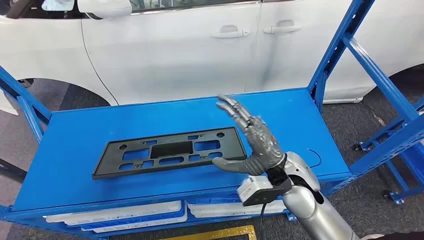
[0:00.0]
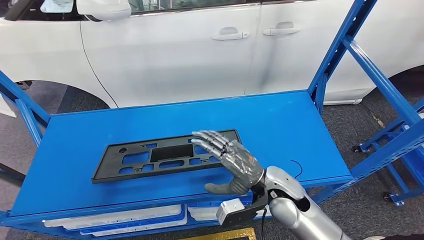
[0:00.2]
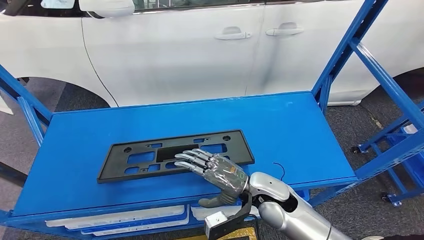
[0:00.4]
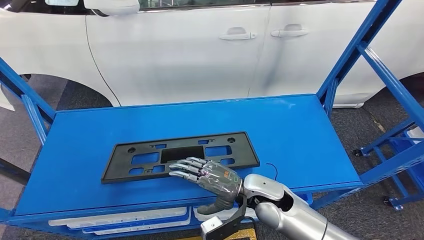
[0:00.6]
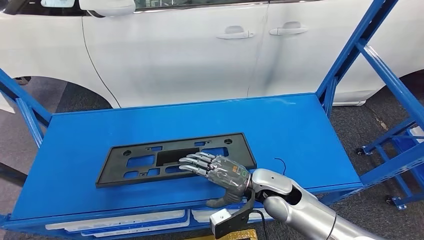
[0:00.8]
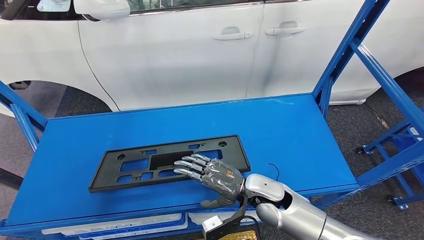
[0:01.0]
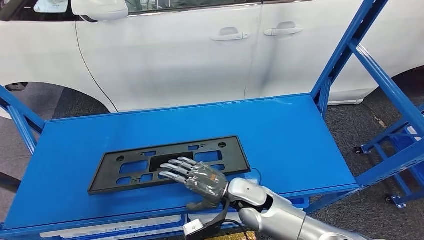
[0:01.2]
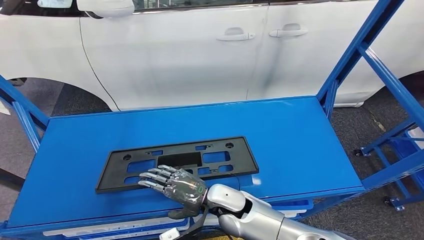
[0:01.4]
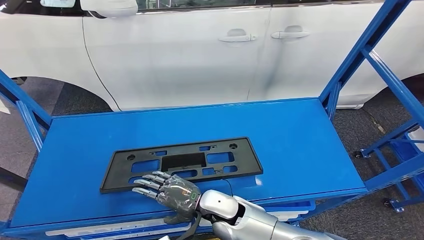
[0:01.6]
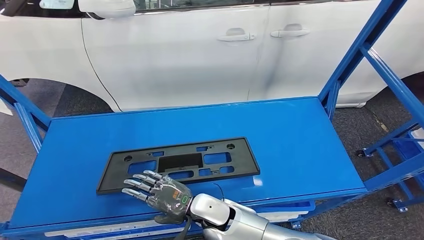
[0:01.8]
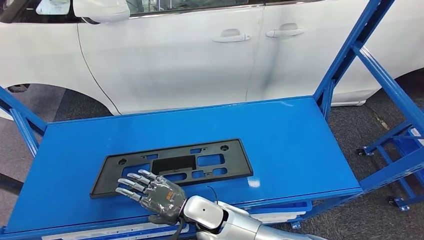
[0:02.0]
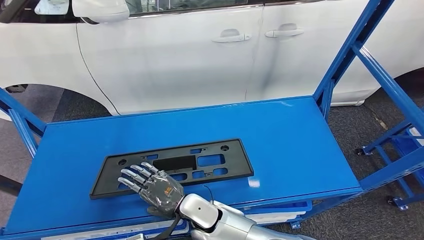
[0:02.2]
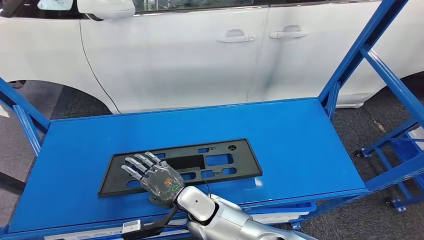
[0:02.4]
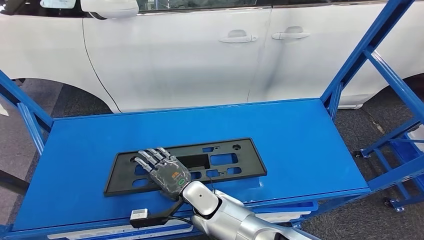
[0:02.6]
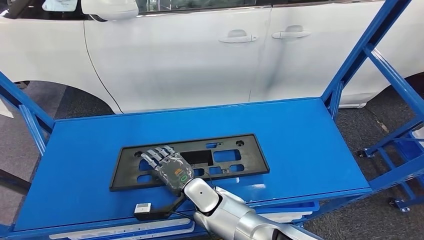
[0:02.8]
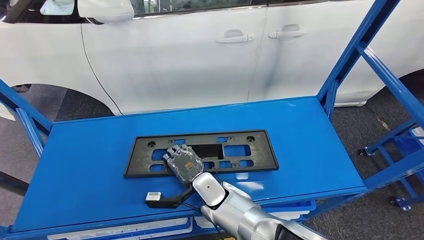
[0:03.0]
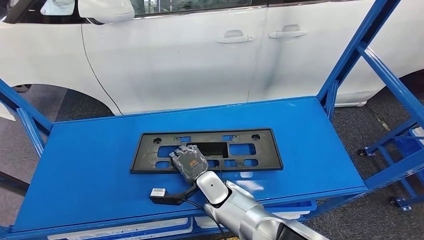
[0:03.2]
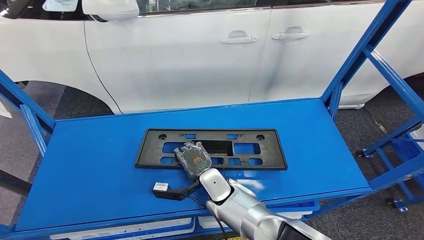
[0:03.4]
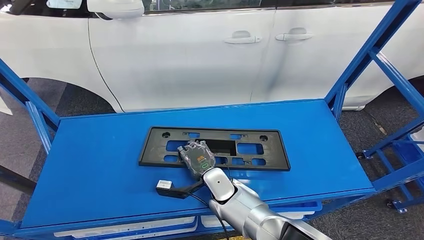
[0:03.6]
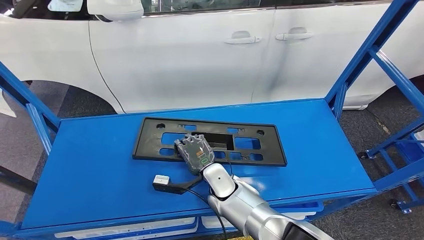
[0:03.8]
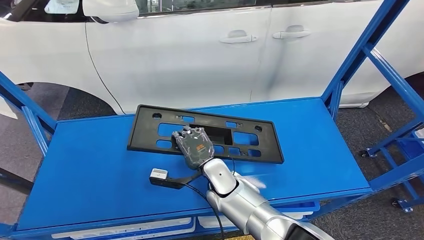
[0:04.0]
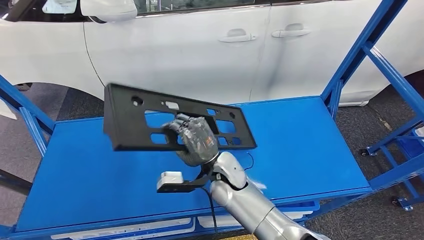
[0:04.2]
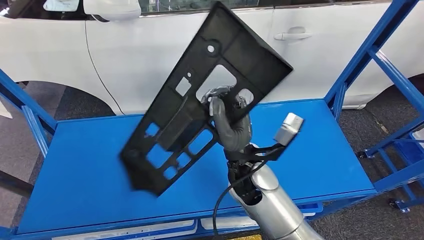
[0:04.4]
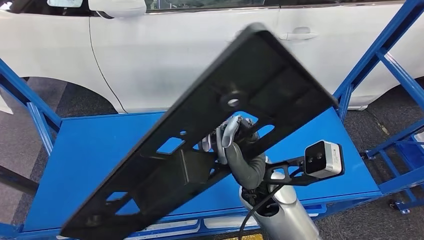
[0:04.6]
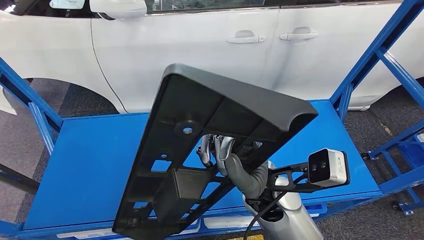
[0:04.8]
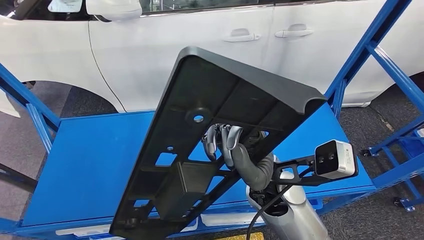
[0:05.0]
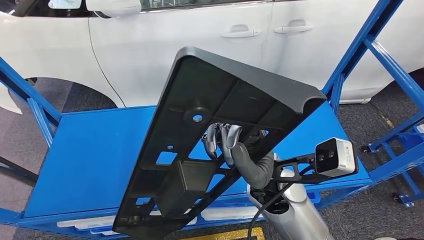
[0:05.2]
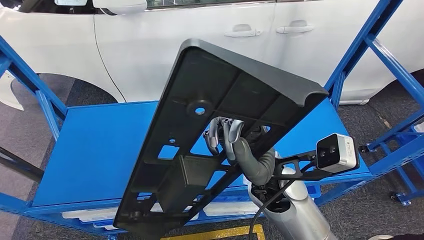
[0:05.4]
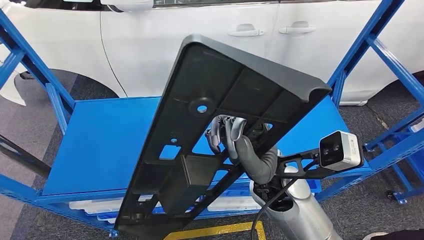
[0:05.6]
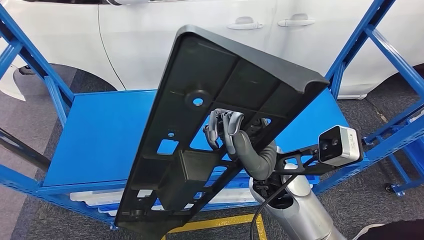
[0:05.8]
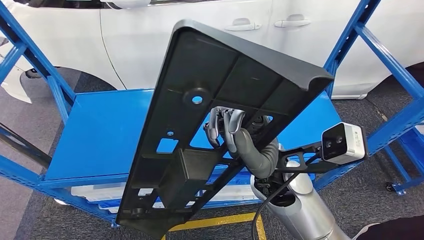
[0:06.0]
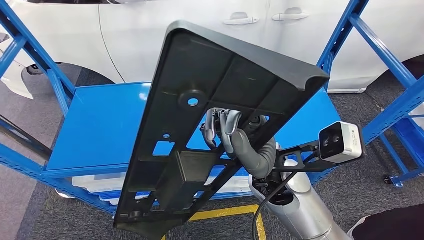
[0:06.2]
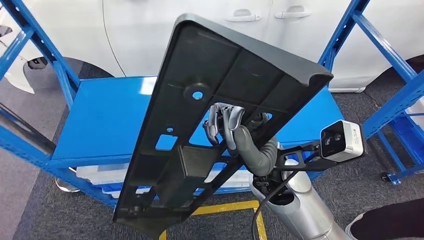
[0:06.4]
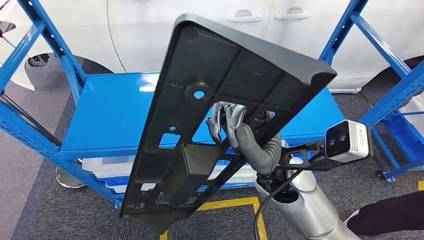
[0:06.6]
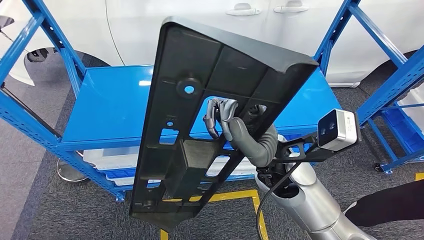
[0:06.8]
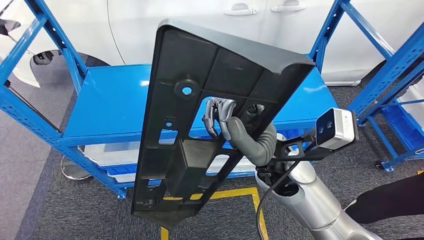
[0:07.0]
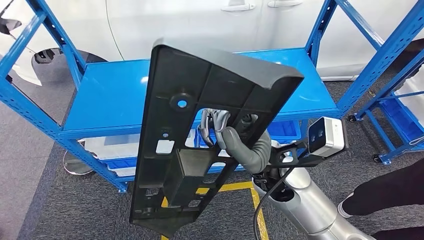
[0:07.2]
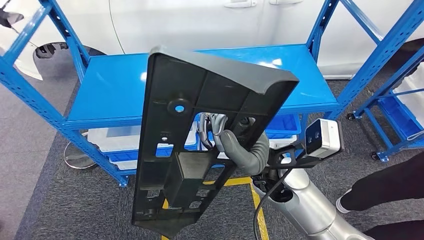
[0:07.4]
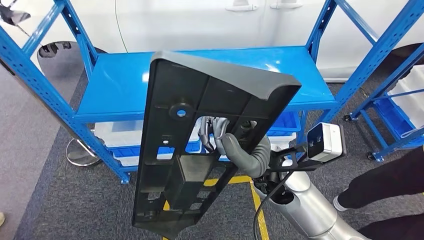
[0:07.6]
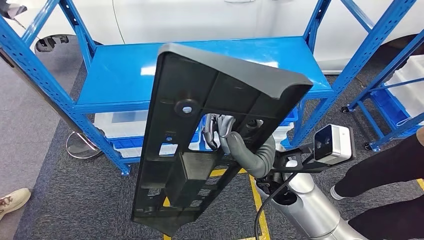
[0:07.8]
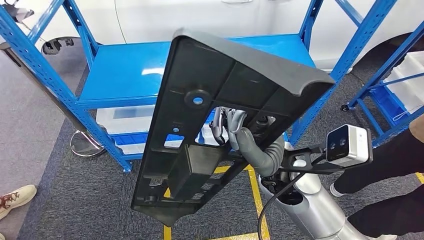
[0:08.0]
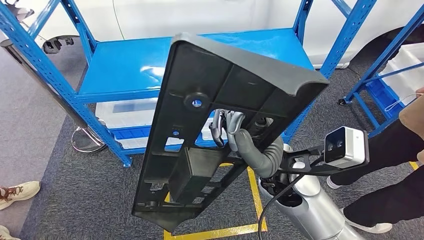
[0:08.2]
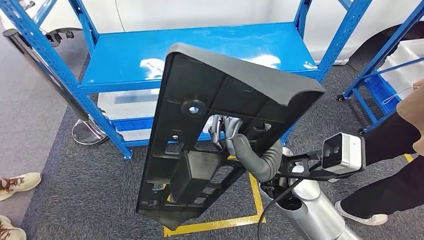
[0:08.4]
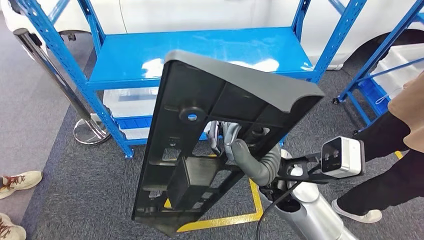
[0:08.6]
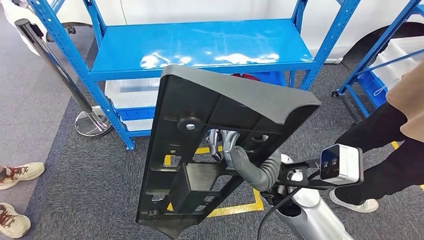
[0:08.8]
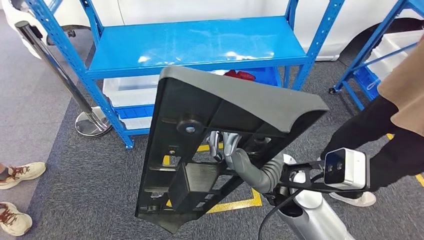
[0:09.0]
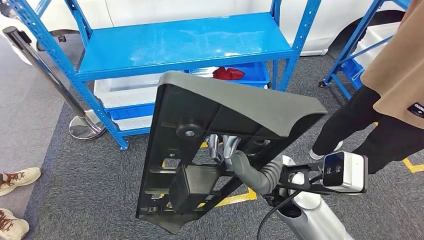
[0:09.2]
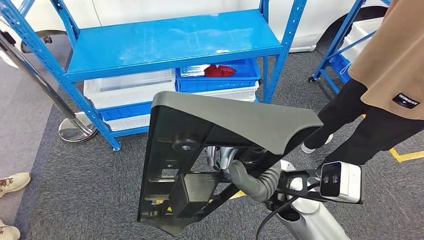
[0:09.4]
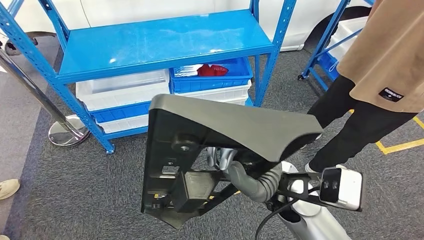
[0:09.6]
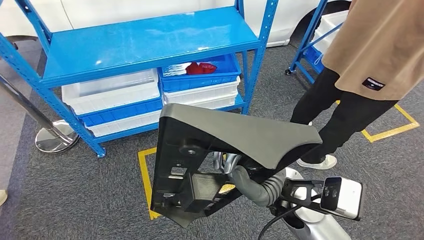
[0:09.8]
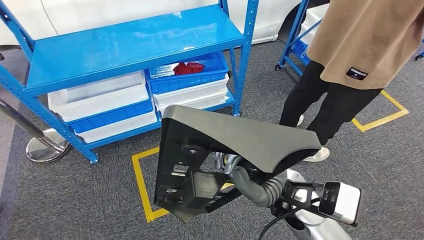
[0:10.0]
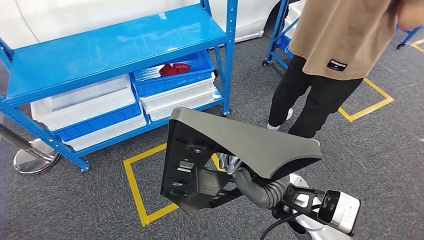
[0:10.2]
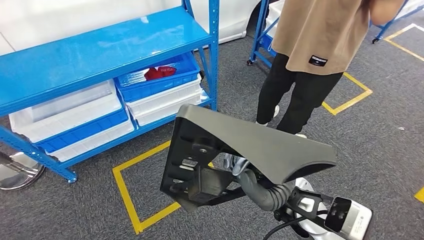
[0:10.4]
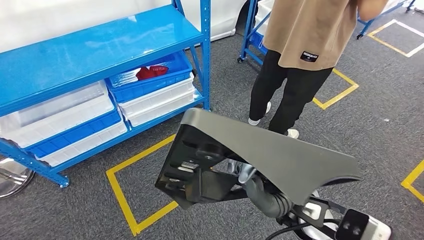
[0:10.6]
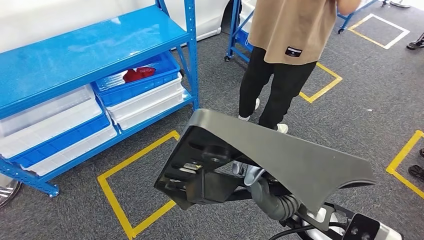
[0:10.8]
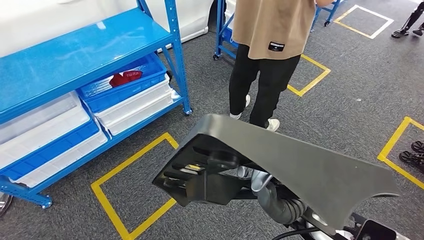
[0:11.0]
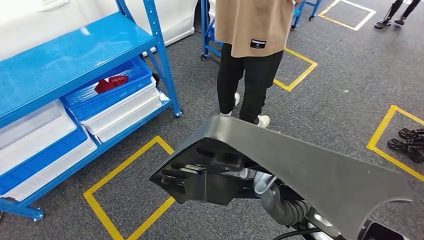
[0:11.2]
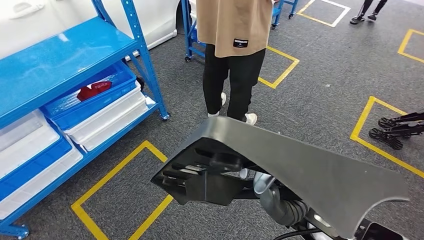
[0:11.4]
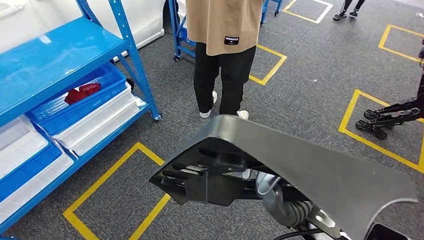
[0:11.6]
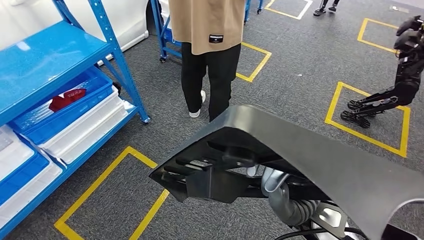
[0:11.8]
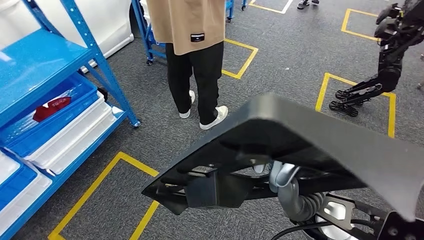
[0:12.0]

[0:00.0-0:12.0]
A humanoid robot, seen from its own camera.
Step, 0:00.0 to 0:05.0: Pick up the small component from the shelf.

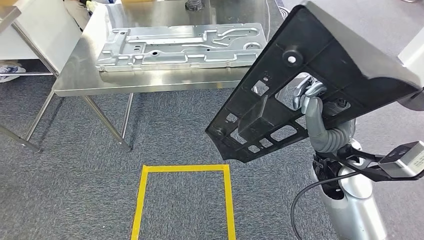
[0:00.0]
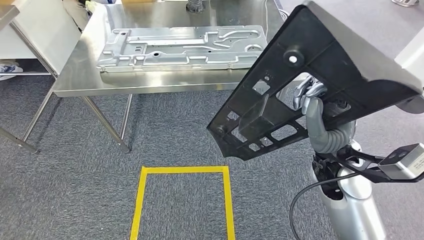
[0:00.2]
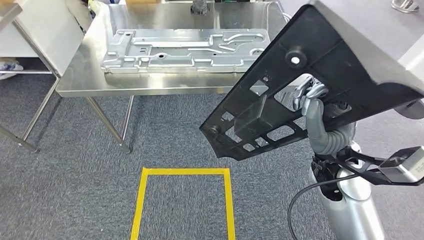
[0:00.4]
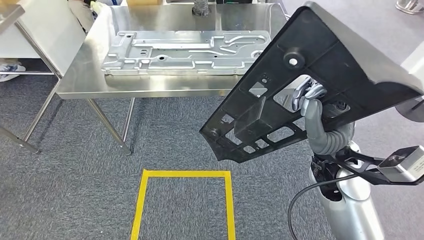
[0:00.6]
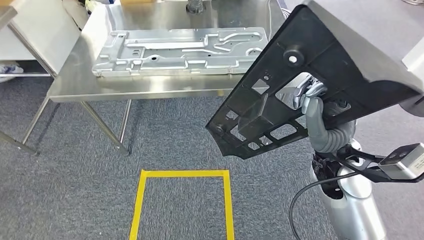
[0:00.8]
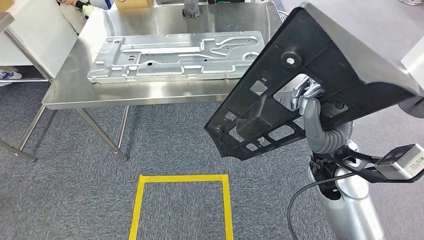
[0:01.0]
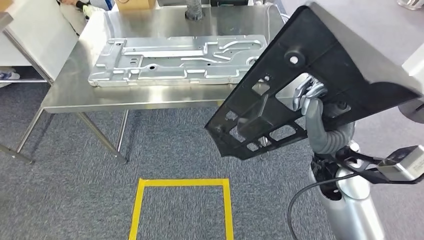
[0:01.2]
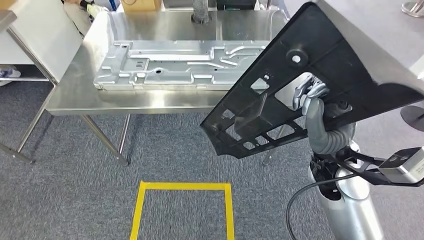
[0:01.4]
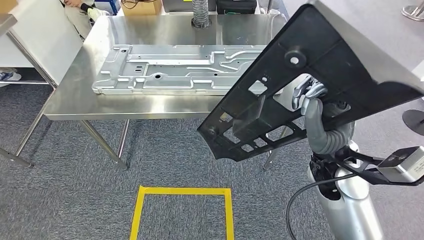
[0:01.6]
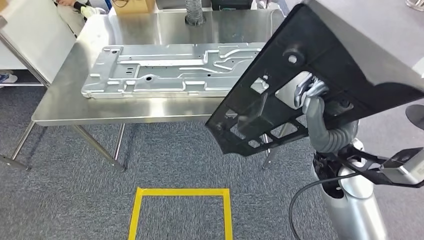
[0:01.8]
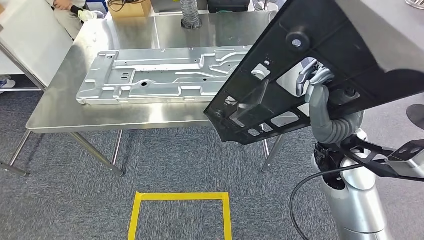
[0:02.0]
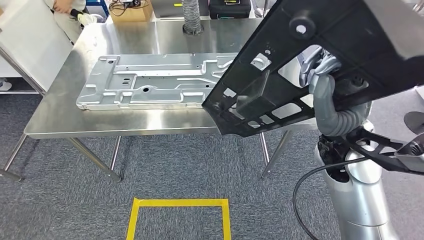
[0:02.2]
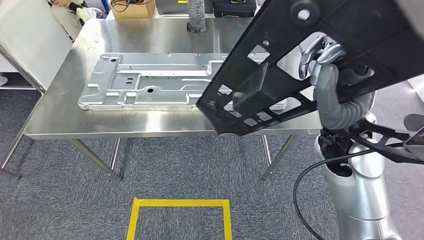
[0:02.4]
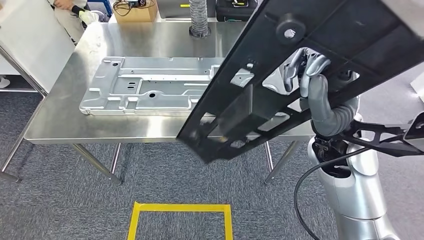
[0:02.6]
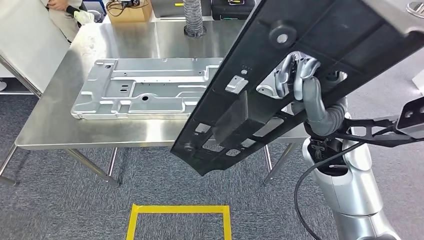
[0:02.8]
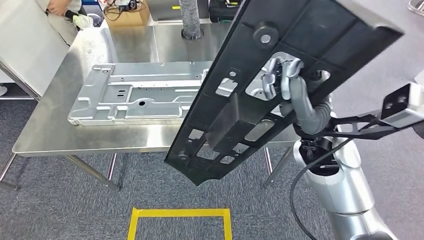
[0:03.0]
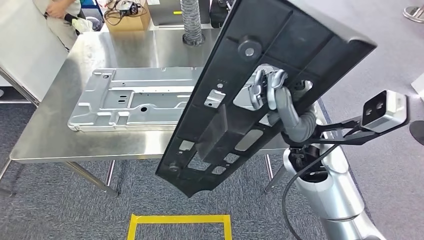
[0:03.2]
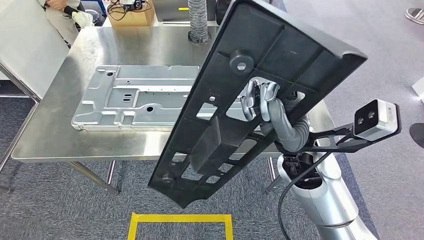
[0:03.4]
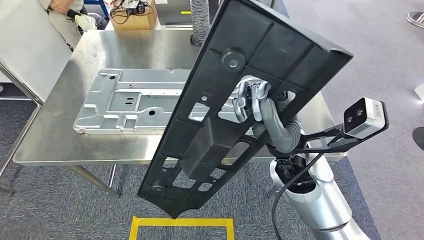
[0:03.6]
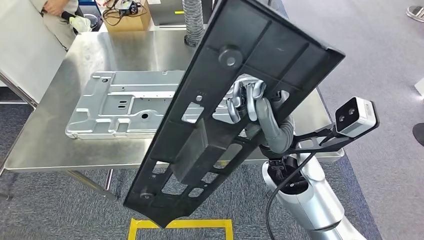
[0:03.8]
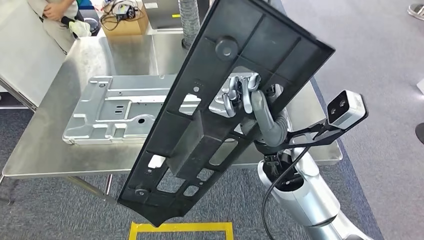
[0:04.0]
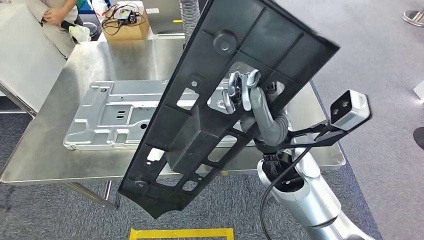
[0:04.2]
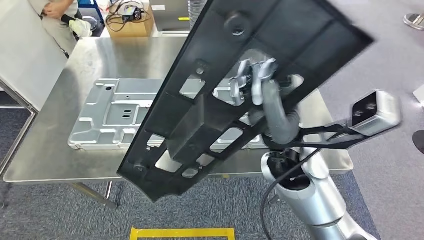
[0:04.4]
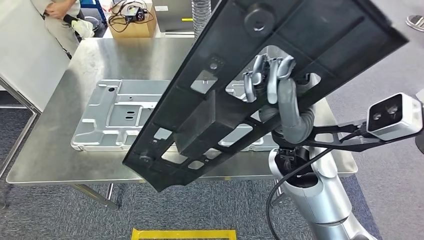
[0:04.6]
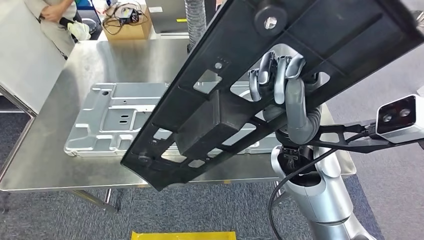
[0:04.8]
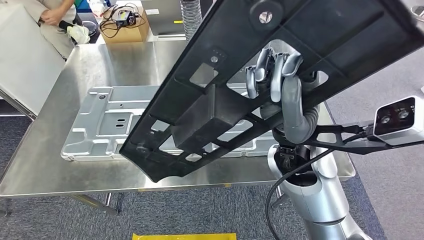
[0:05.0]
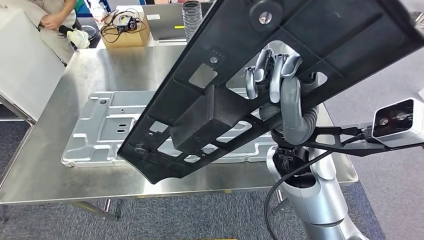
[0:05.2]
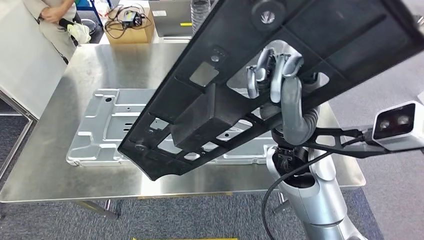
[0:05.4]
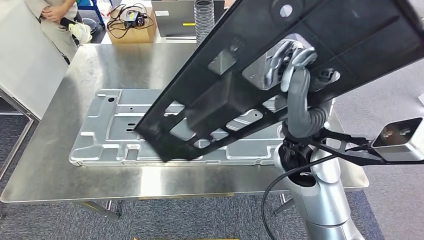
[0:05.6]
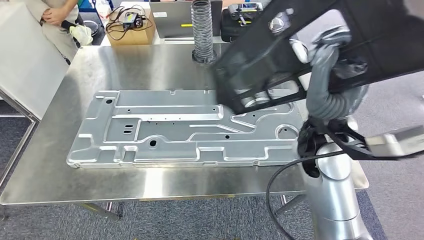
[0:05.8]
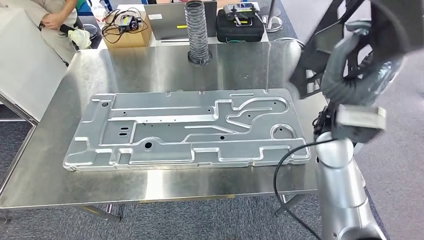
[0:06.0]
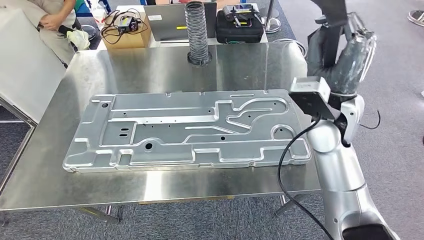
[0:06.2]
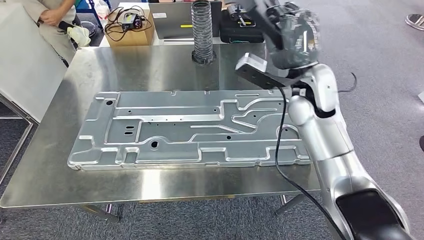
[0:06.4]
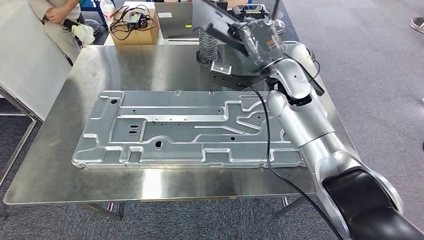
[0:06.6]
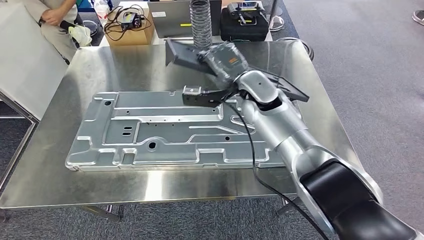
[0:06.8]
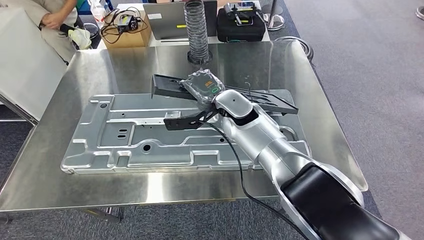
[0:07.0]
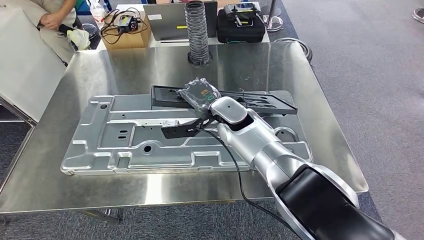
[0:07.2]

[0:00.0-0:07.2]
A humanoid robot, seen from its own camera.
Step, 0:00.0 to 0:03.0: Move the small component to the workbench.
